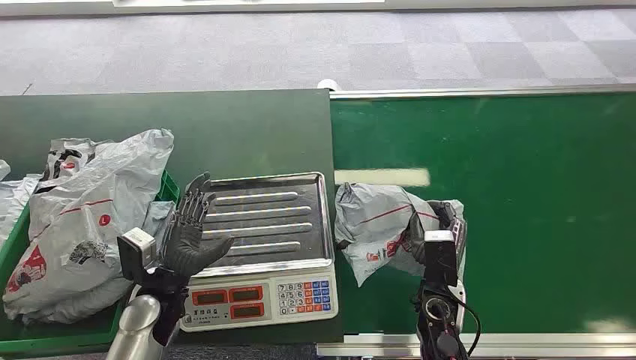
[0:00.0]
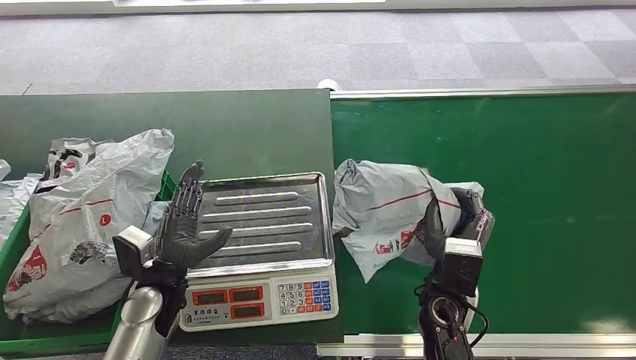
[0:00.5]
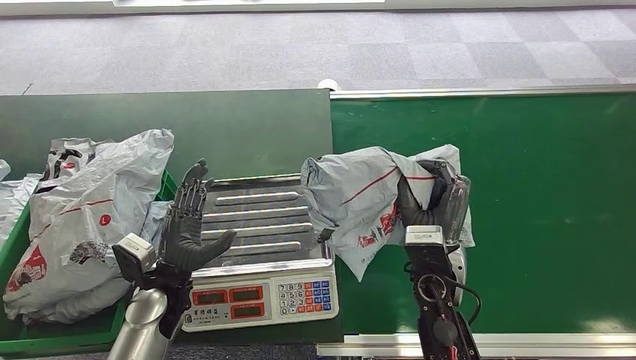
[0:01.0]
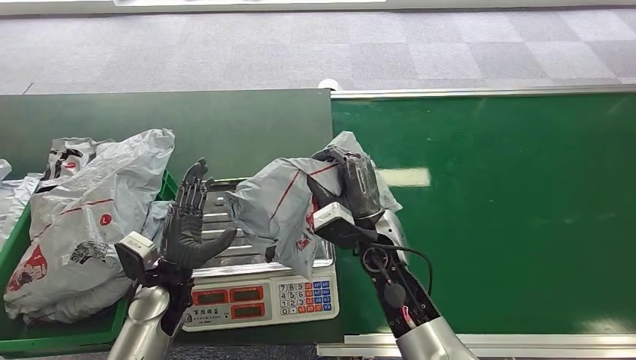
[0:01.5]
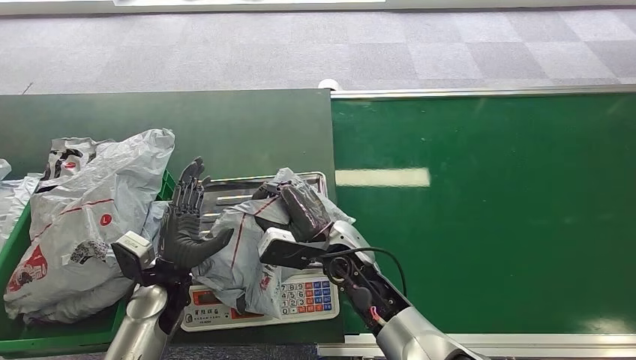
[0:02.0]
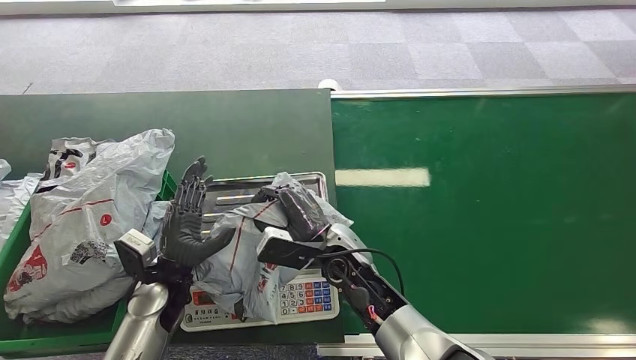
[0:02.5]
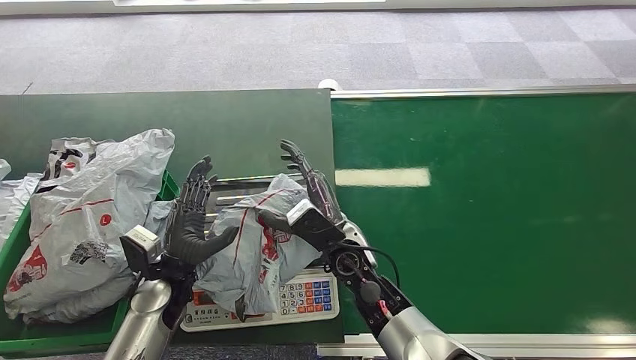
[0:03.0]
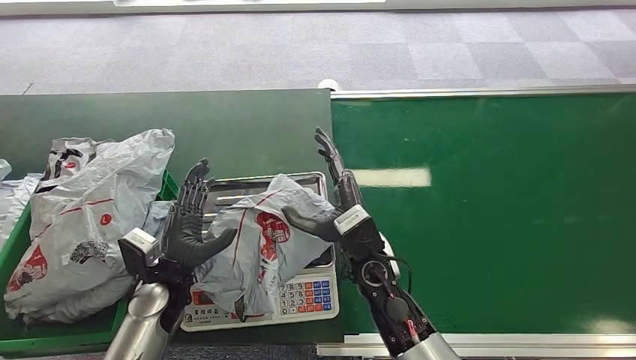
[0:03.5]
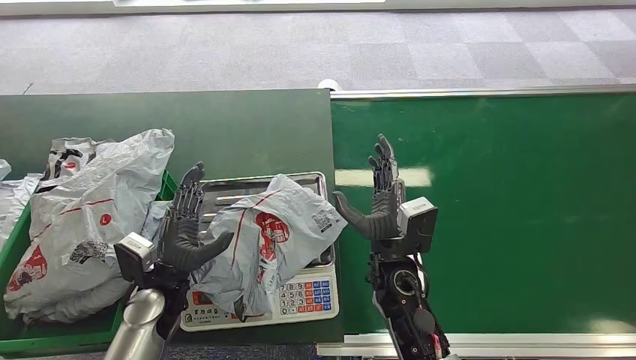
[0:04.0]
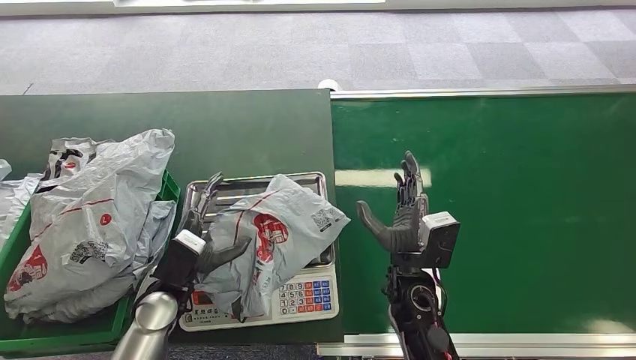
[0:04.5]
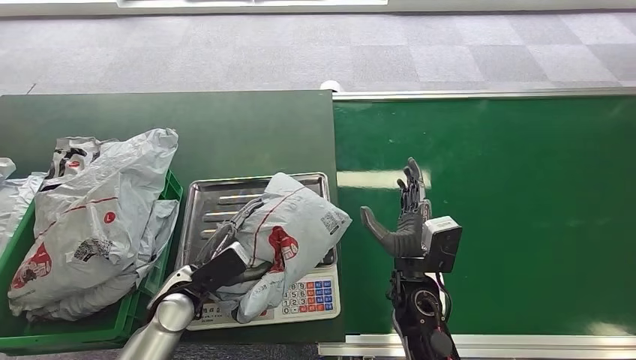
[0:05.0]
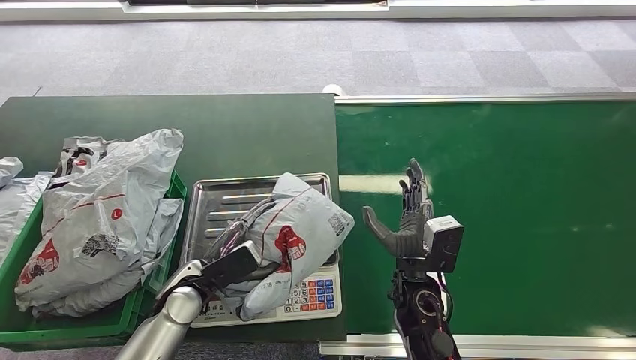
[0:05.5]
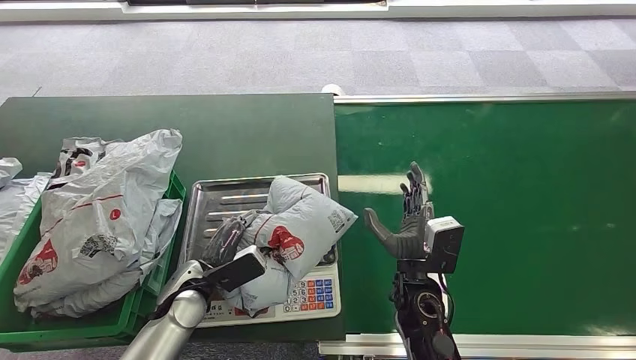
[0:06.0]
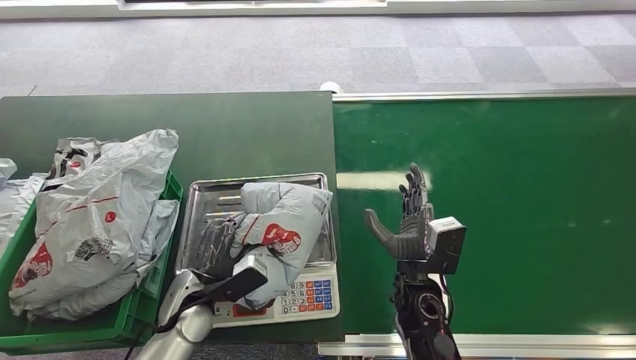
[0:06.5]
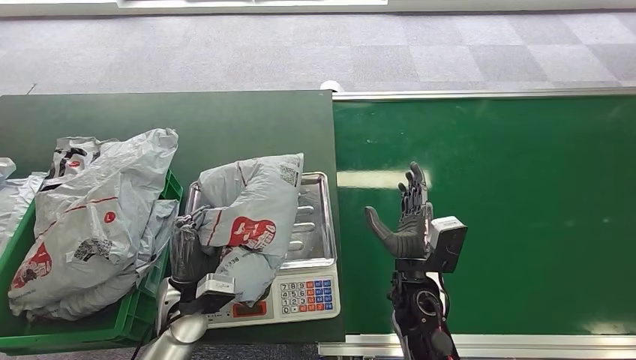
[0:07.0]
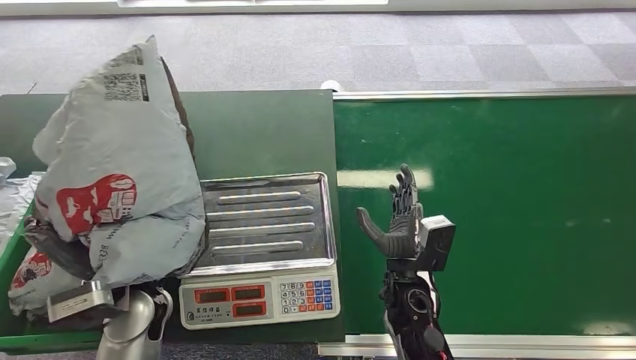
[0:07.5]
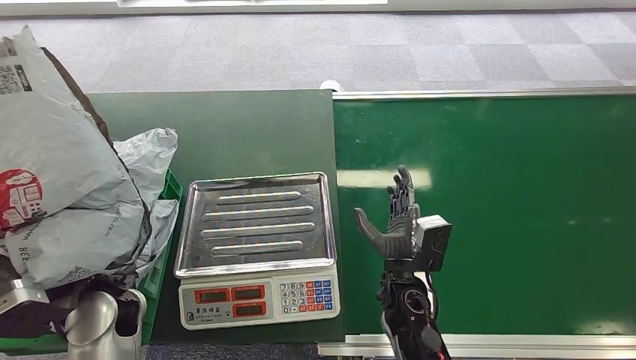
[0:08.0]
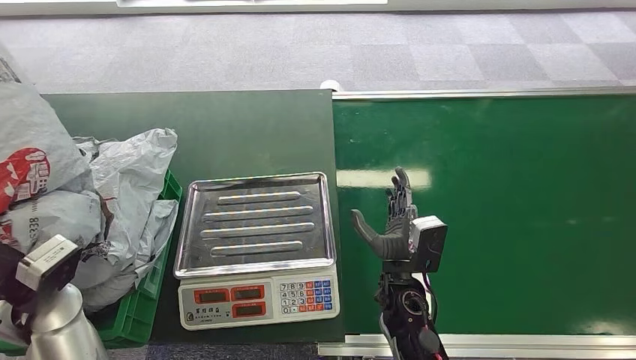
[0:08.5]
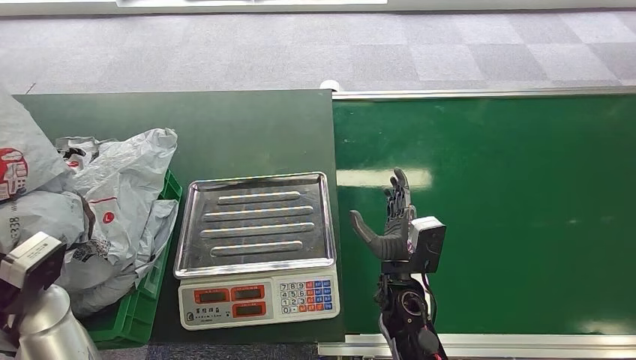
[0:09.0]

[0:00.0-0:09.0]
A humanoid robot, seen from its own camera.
Task of the whole recording: Weigh the package on the weighing device and place it in the left basket.
Step, 0:00.0 to 0:00.5: Pick up the package from the conveyor belt.
Step, 0:02.0 to 0:03.5: Place the package onto the inbound machine.
Step, 0:05.5 to 0:07.0: Pick up the package from the inbound machine.
0:02.0 to 0:04.5: The right hand goes some 10 cm to the right.
0:07.0 to 0:09.0: The left hand moves to the left and upward, approximately 20 cm.

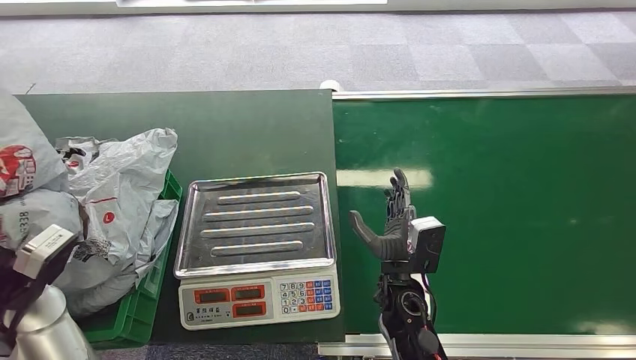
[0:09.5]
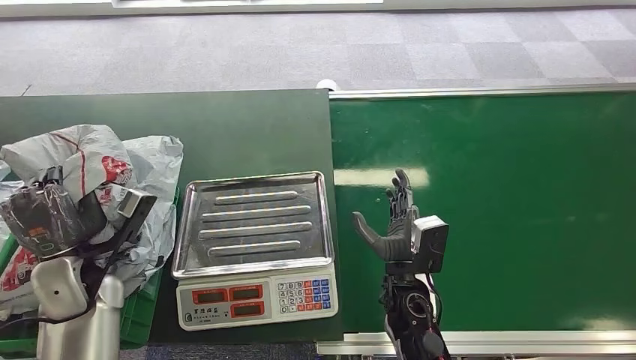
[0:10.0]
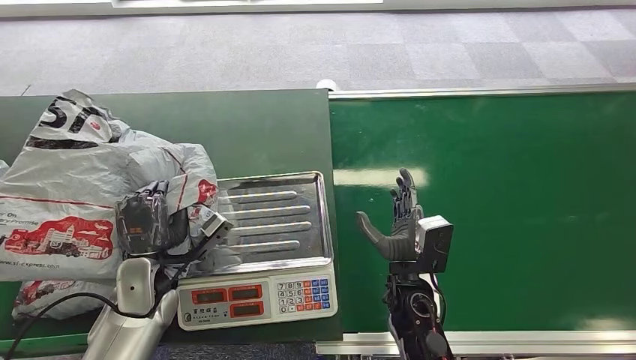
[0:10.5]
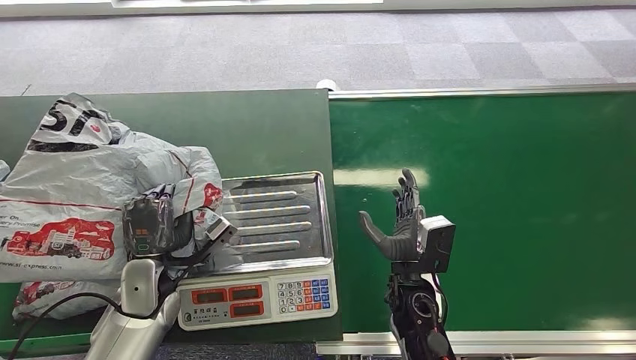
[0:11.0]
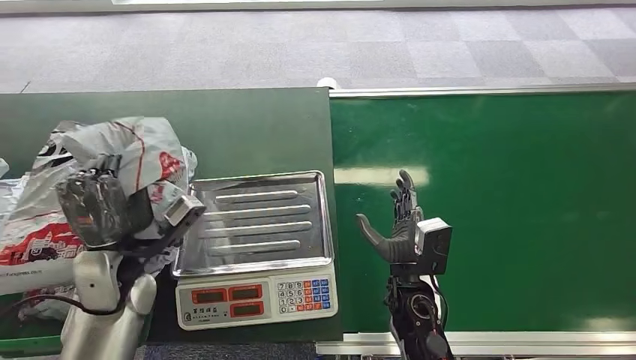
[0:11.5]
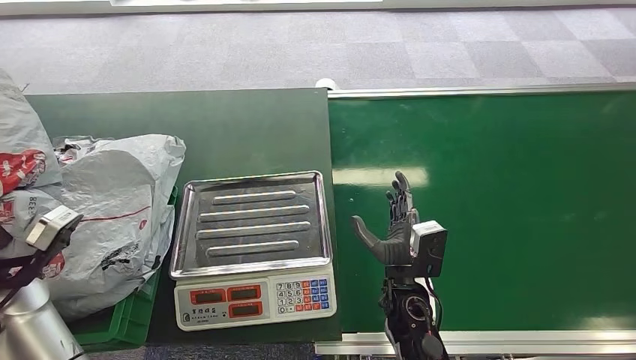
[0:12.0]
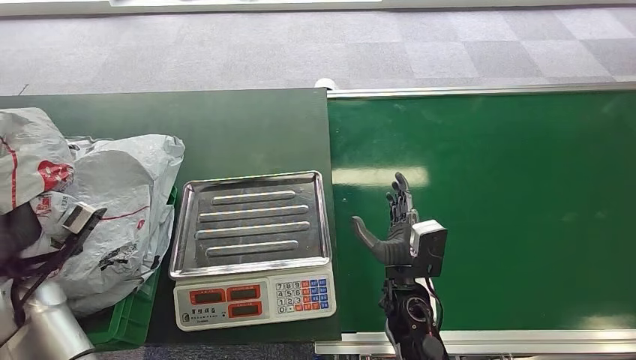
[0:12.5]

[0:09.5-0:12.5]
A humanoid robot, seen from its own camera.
Task of the whole recording: Weigh the package on the weighing device and place it in the left basket.
Step, 0:10.0 to 0:12.5: Place the package into the parcel locker.

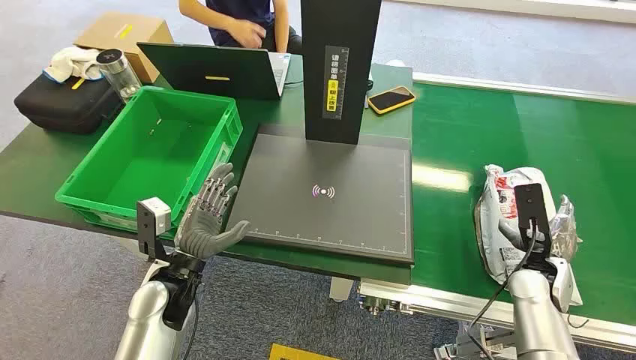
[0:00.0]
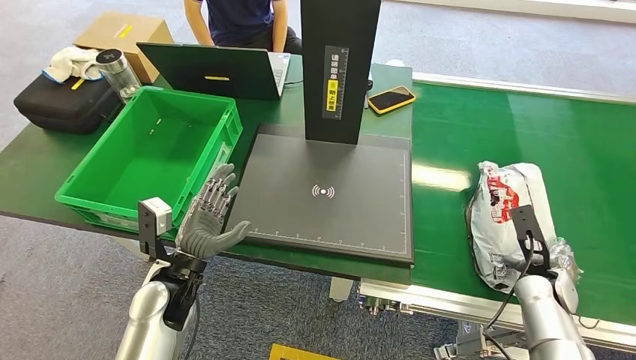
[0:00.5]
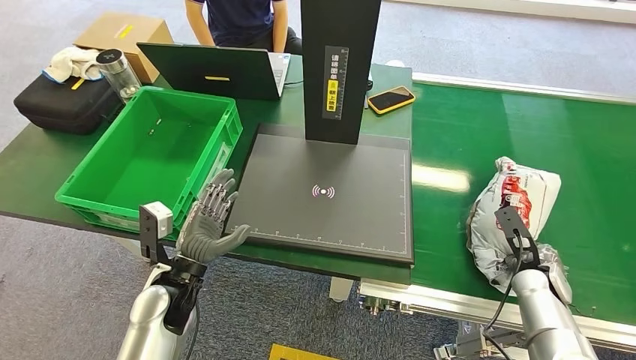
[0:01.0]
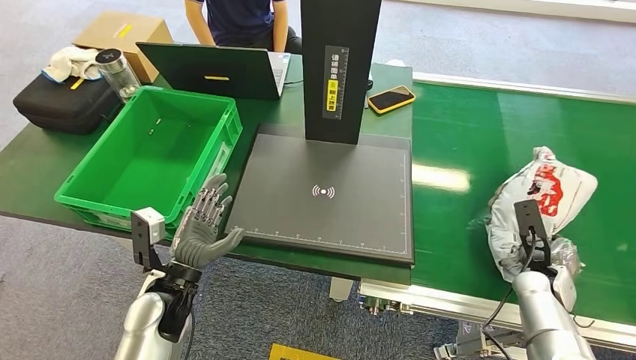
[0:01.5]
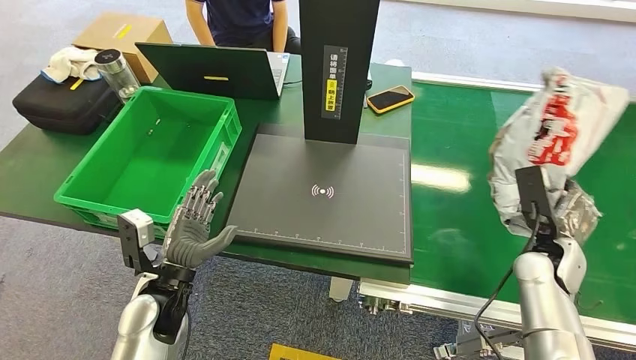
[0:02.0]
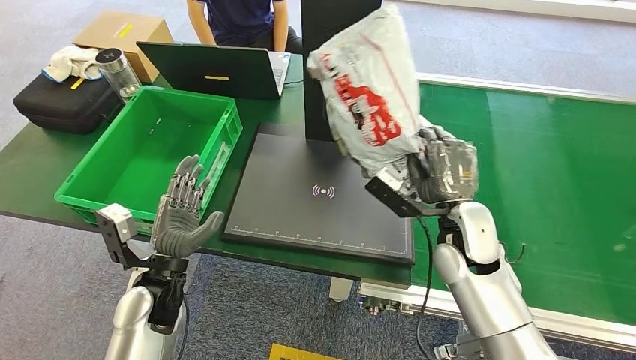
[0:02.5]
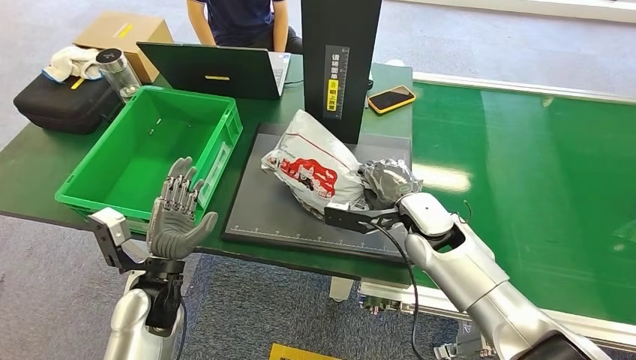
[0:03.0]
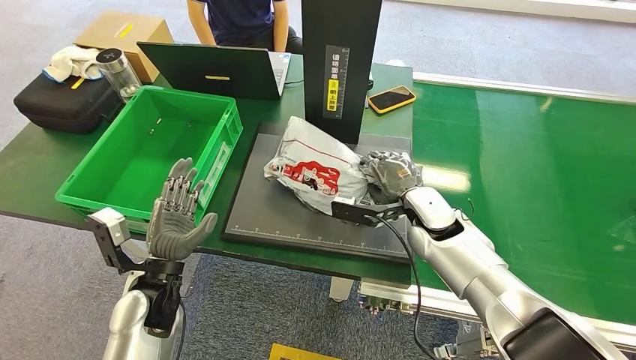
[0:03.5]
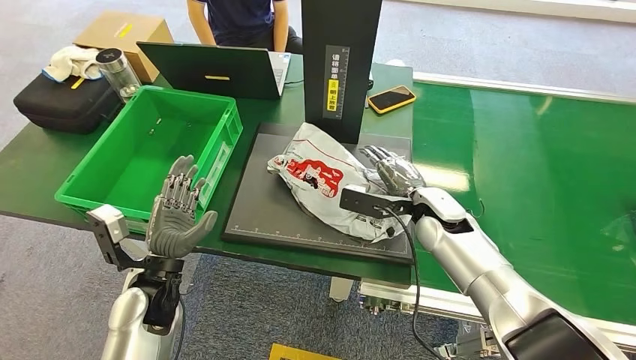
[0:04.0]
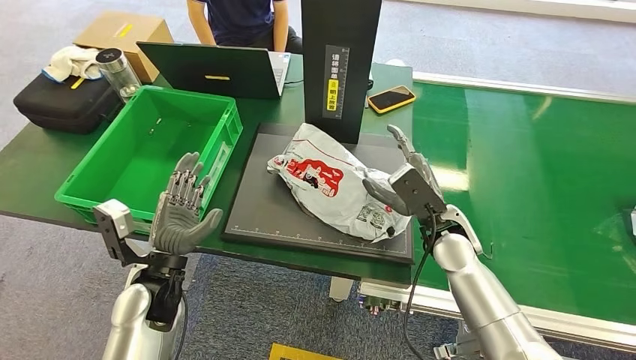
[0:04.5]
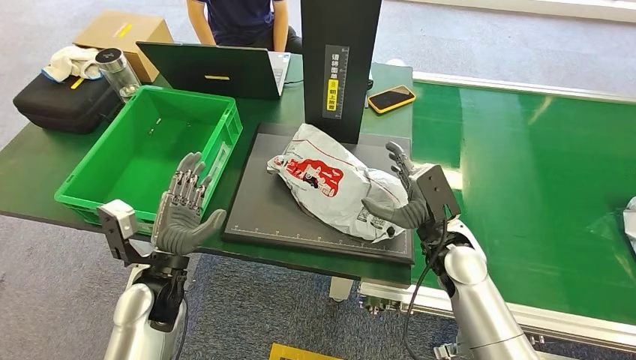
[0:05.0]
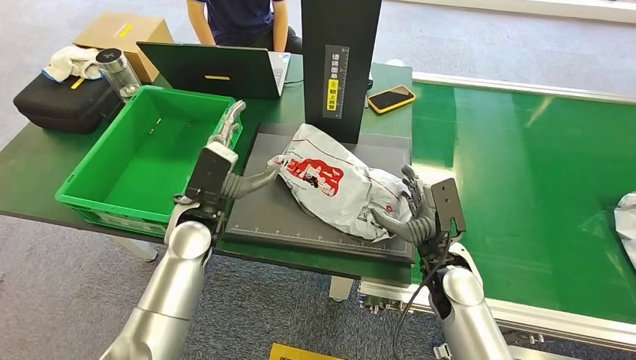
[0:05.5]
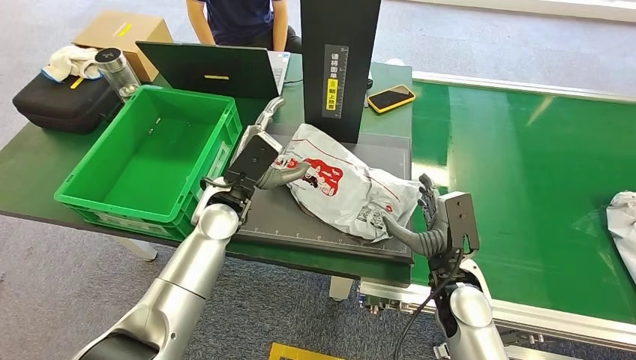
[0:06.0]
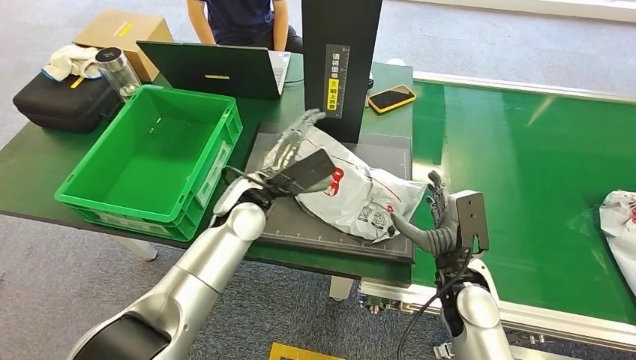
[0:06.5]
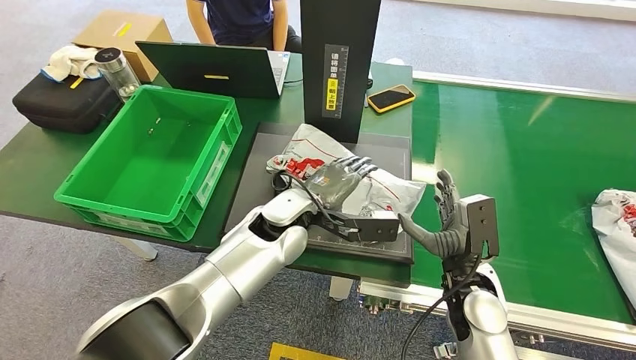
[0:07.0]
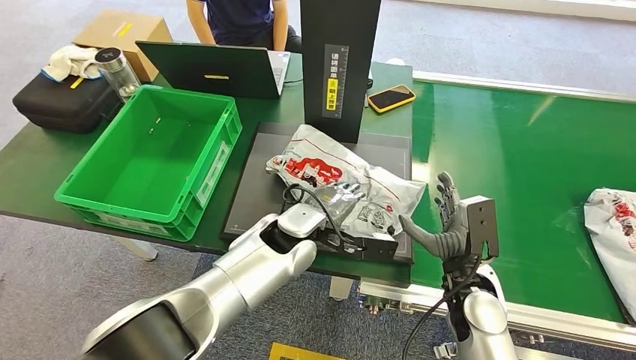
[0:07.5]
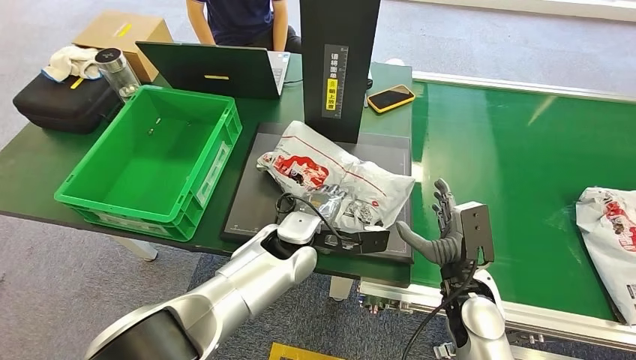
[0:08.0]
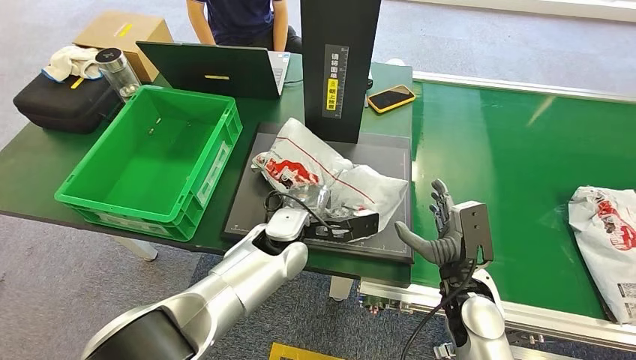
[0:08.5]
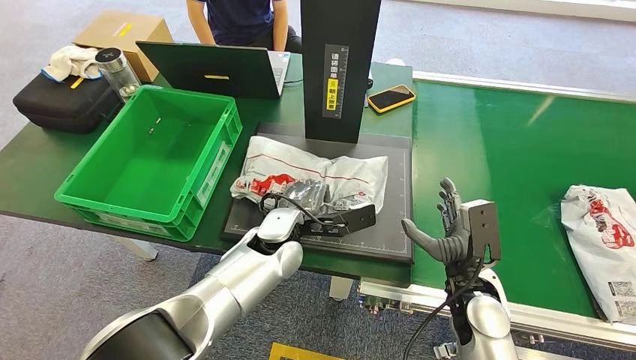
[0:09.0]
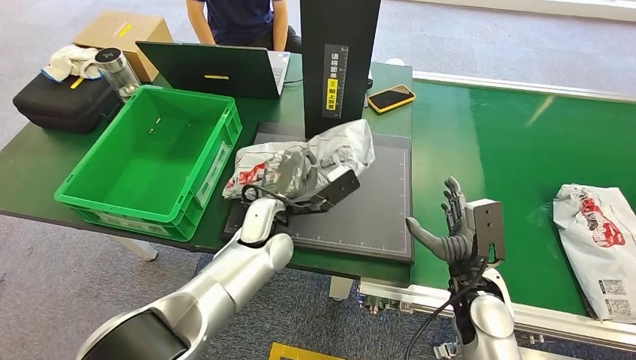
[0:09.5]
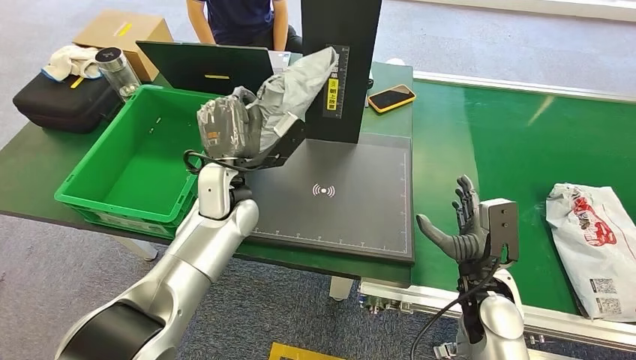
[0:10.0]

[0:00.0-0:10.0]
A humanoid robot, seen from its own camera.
Task of the whole recording: Weigh the package on the weighing device and place it in the left basket.
Step, 0:00.0 to 0:02.0: Pick up the package from the conveyor belt.
Step, 0:02.5 to 0:05.0: Place the package onto the inbound machine.
Step, 0:05.5 to 0:09.0: Pick up the package from the inbound machine.
